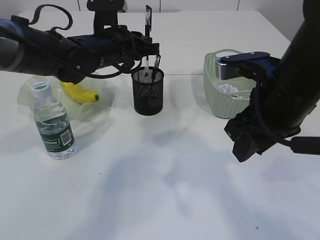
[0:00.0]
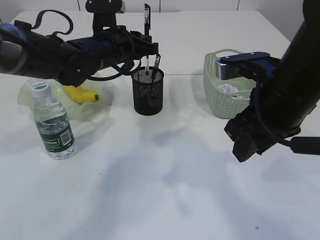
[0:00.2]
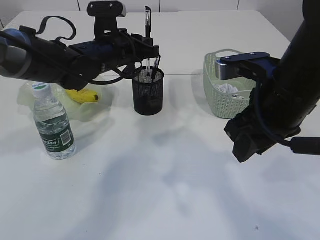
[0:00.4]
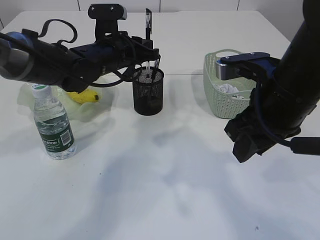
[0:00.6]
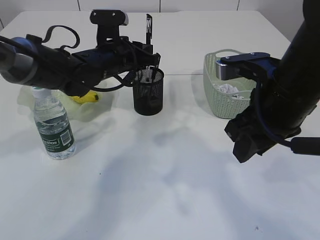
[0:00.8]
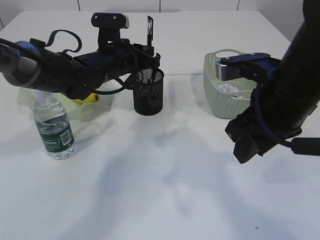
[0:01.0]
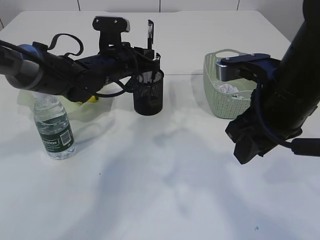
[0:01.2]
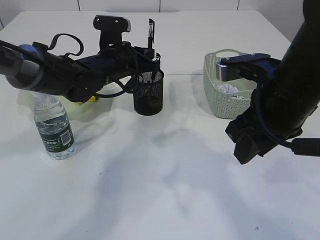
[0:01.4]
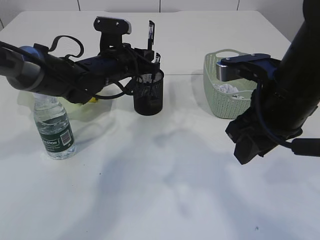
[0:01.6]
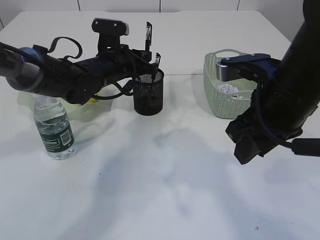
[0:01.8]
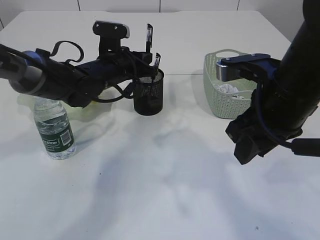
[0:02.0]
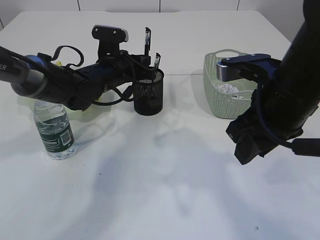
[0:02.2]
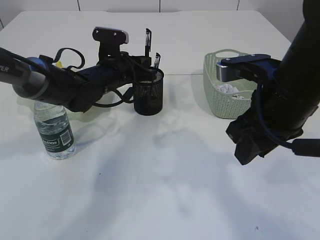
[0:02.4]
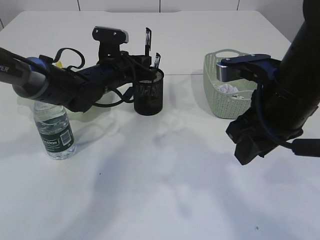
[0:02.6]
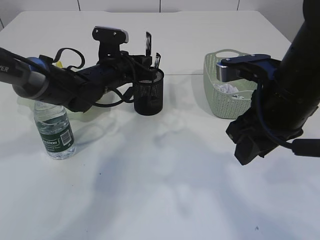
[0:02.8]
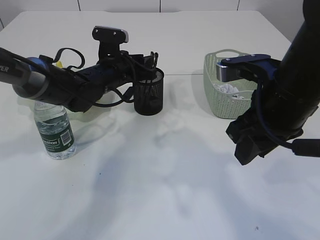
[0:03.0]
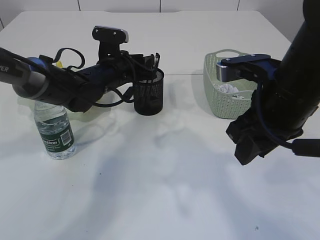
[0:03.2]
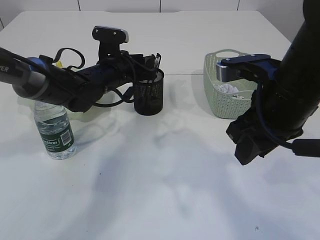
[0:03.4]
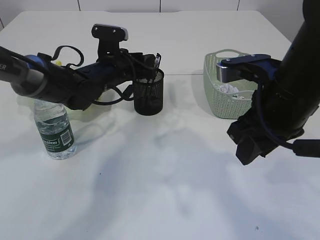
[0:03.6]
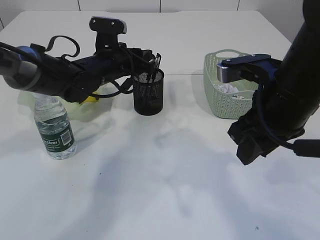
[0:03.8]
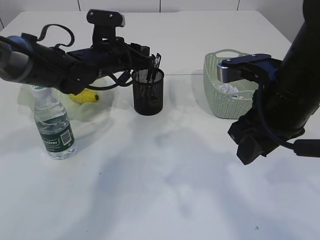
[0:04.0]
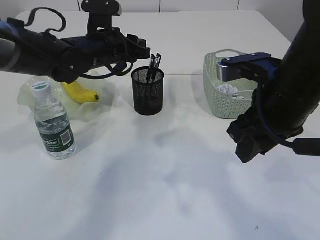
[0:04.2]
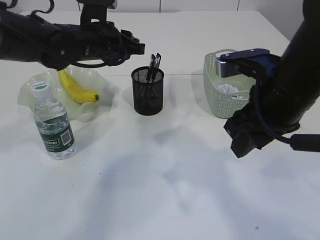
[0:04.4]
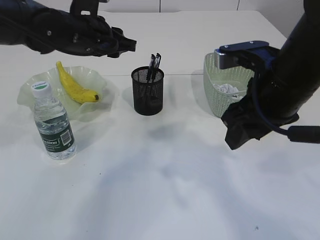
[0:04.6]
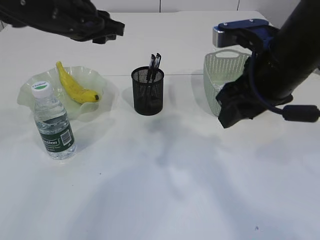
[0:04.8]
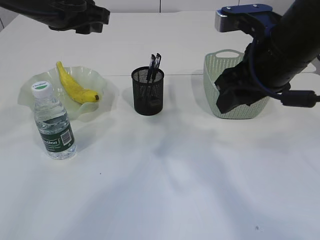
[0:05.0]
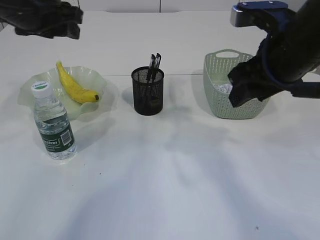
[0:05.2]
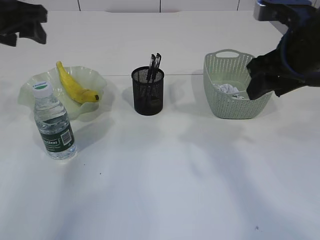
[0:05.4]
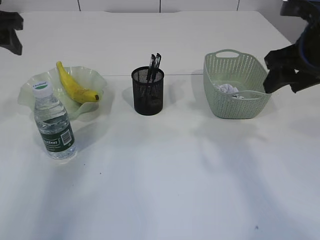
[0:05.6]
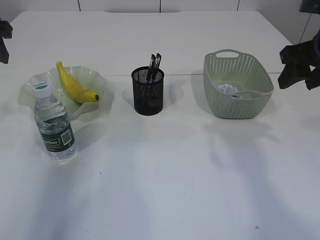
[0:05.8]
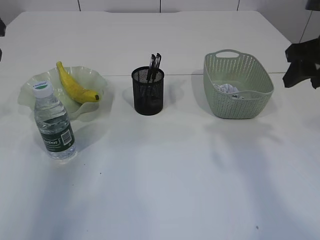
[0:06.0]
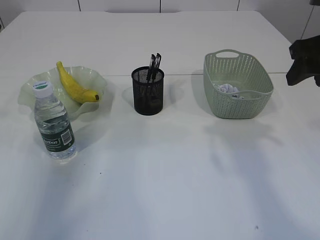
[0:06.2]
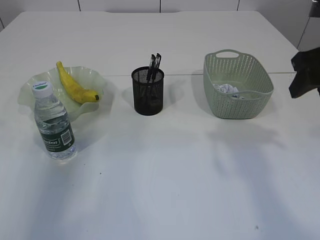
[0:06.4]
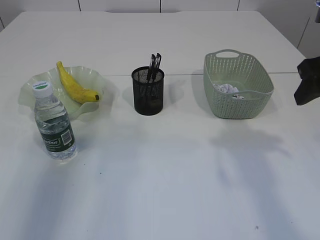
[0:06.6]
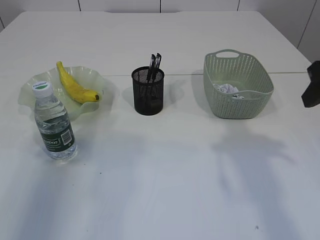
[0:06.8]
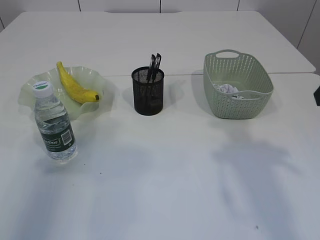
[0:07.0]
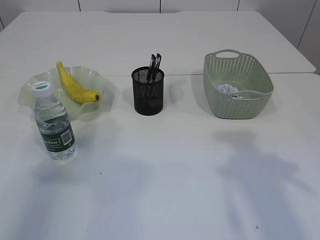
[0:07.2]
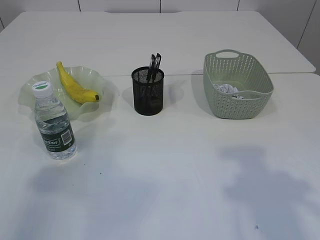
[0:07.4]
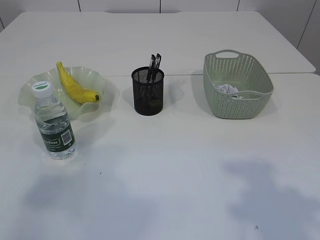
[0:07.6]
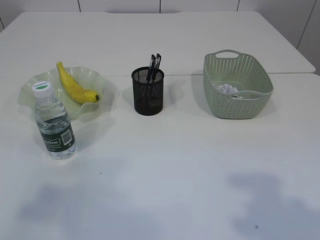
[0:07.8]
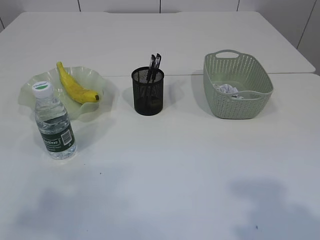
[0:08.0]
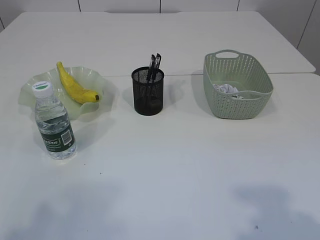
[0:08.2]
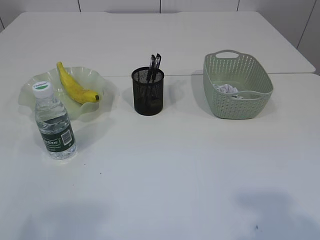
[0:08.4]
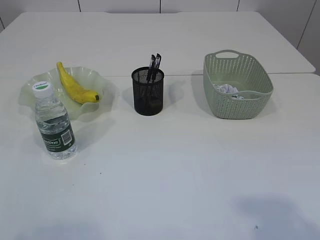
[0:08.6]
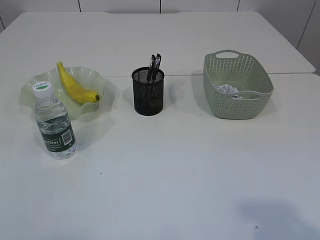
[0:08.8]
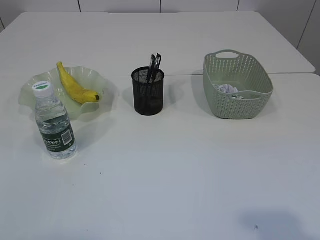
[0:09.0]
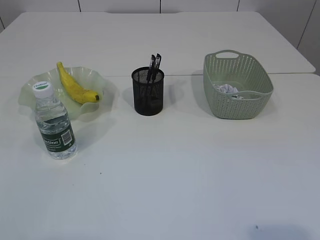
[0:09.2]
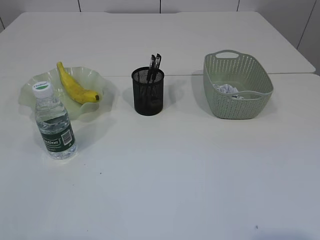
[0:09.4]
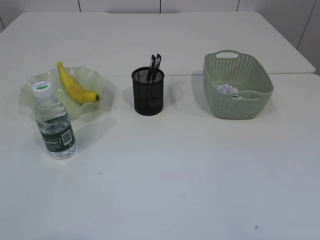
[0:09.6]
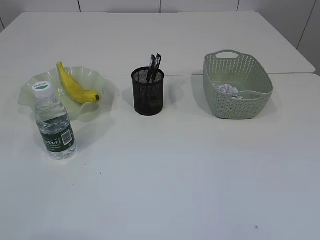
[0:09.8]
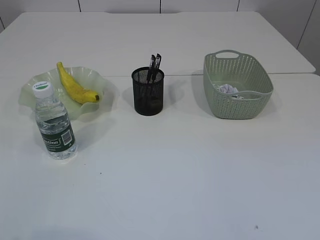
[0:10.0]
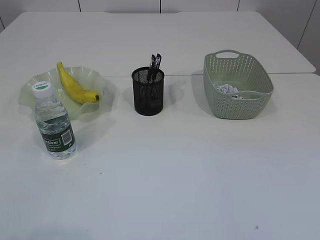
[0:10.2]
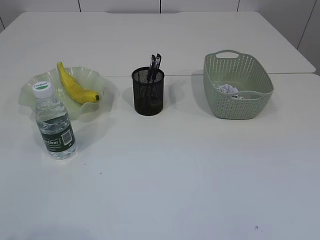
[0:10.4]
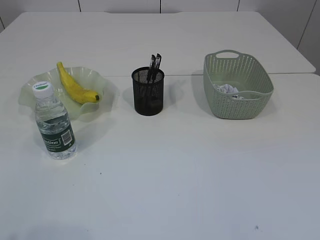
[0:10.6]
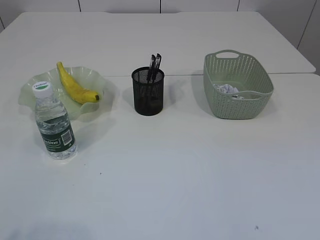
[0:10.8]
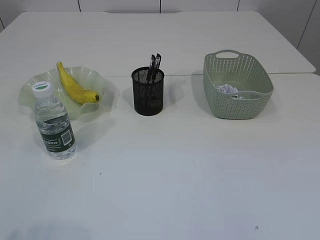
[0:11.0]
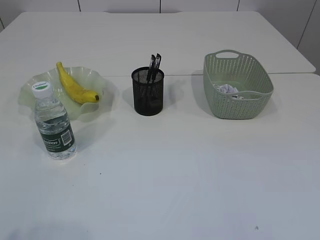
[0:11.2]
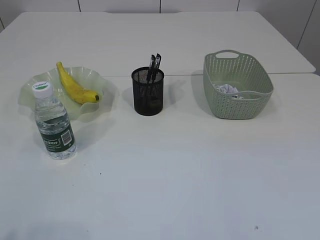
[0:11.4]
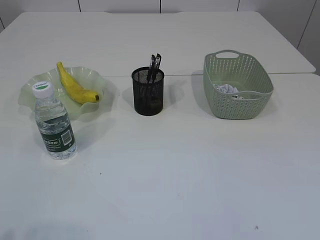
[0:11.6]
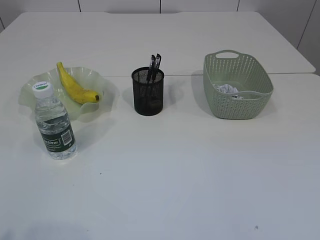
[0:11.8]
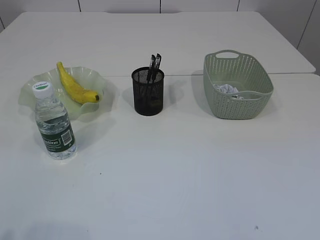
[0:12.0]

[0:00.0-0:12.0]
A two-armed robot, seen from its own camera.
Step, 0:00.0 to 0:04.4: Place the pen into the pen holder.
0:00.0 to 0:01.6: There are only small adjustments of the grippers.
0:01.6 to 0:03.0: The grippers stay close to where they were, moving slightly.
0:03.0 to 0:04.4: The left gripper goes roughly 10 cm upward.
0:04.4 to 0:06.0: The left gripper shifts some 20 cm to the left, upward and backward, and opens its fingers; the right gripper moves to the right and forward, roughly 10 cm.
0:06.0 to 0:07.6: The two grippers go some 20 cm backward.

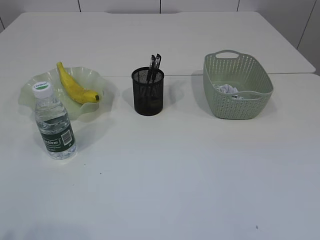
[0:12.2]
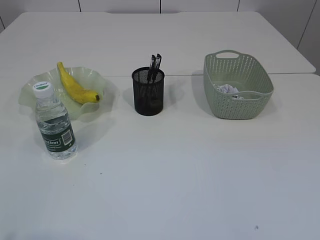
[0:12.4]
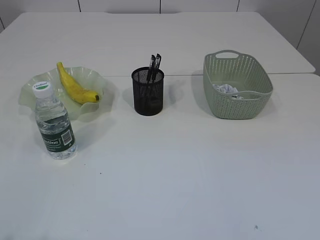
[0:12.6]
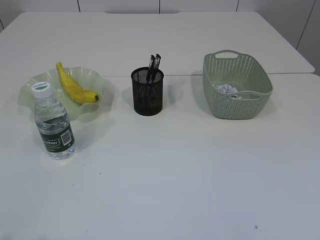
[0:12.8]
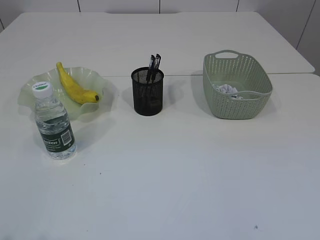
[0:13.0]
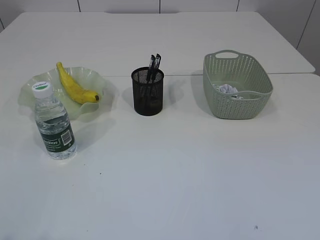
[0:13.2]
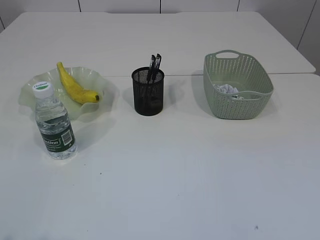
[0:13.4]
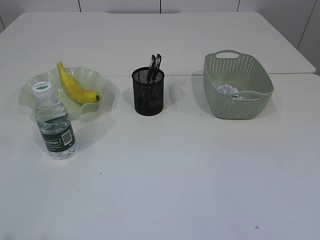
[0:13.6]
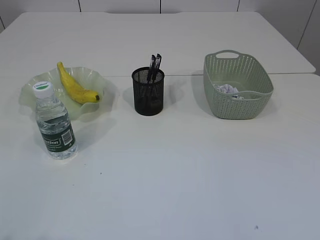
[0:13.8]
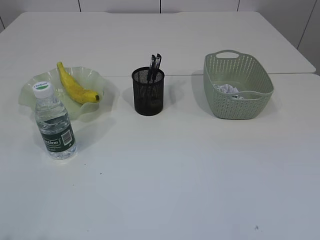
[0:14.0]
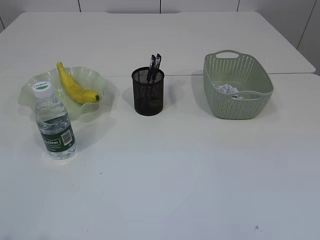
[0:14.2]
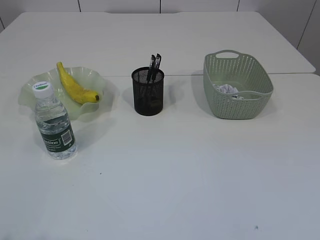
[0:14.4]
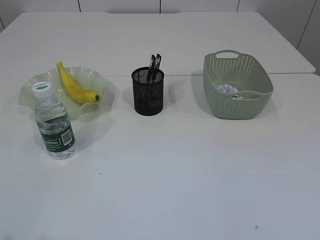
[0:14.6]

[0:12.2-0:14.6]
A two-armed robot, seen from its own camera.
0:13.4 to 0:14.6: Neither gripper changes place.

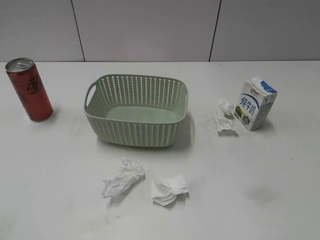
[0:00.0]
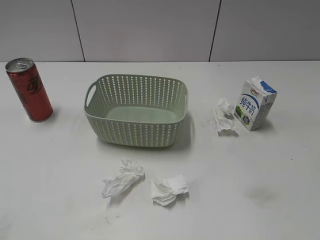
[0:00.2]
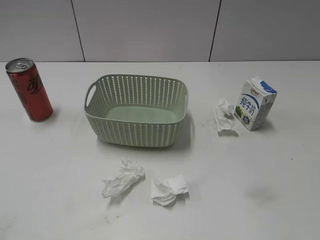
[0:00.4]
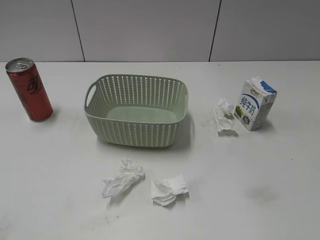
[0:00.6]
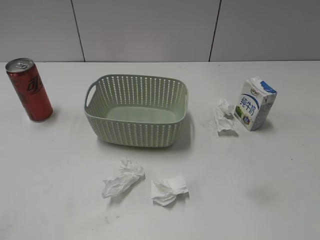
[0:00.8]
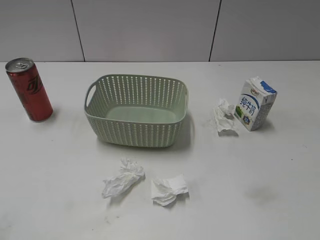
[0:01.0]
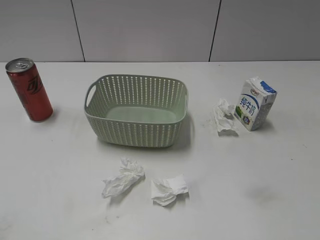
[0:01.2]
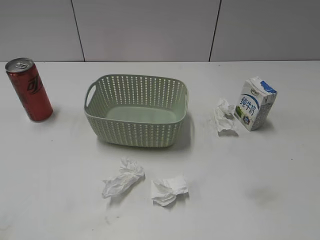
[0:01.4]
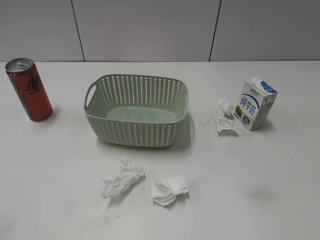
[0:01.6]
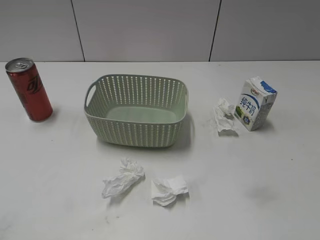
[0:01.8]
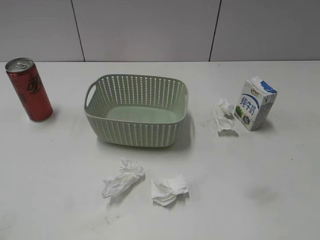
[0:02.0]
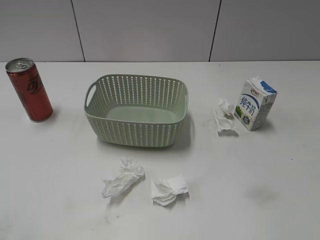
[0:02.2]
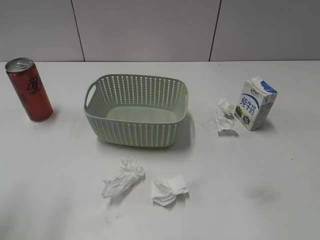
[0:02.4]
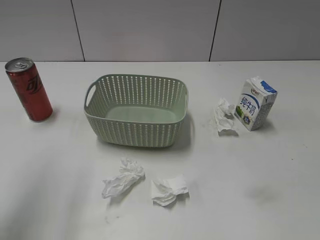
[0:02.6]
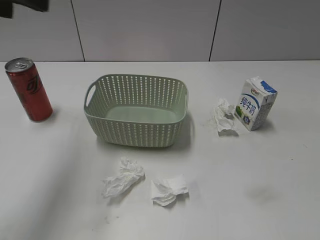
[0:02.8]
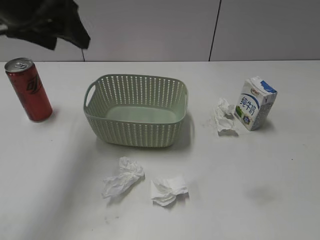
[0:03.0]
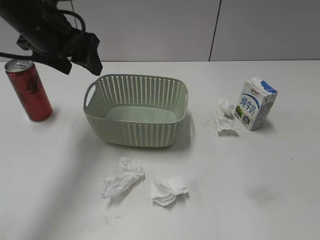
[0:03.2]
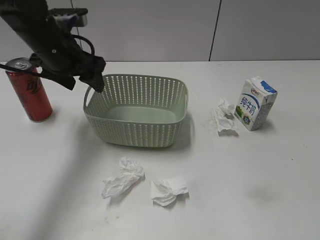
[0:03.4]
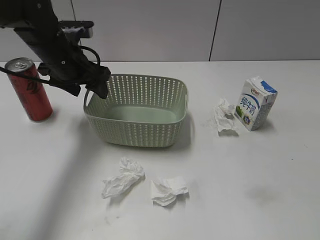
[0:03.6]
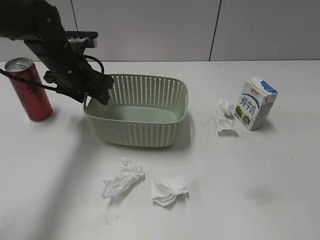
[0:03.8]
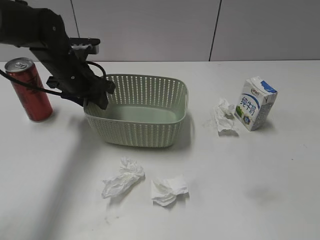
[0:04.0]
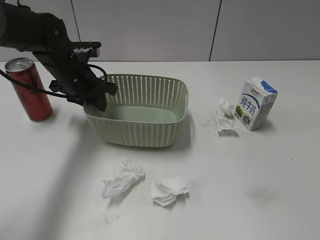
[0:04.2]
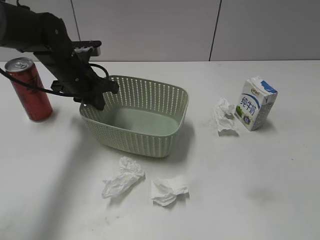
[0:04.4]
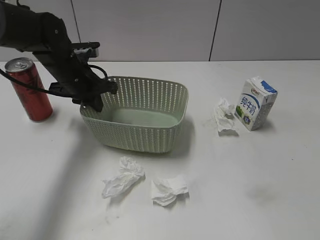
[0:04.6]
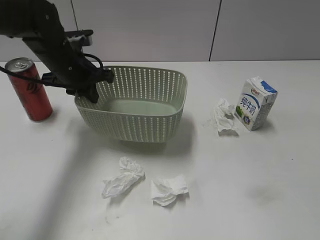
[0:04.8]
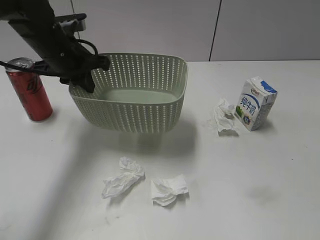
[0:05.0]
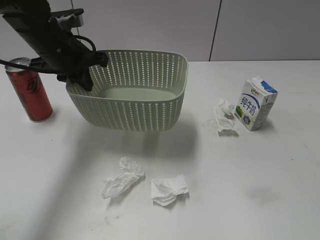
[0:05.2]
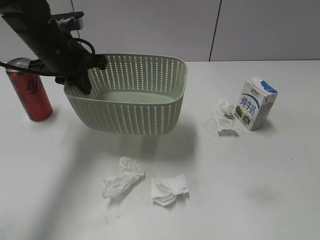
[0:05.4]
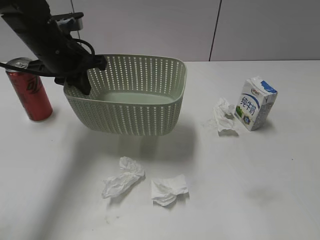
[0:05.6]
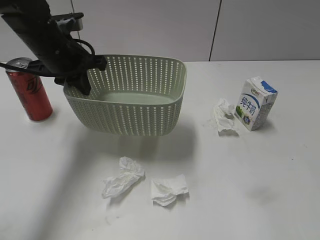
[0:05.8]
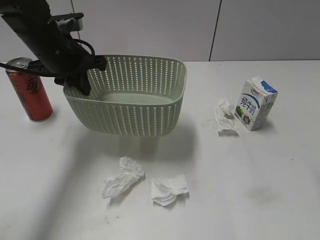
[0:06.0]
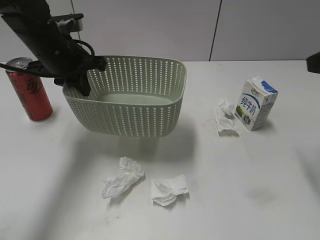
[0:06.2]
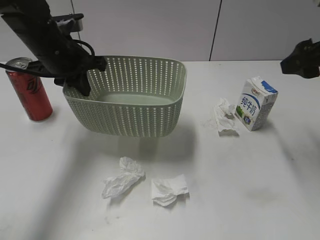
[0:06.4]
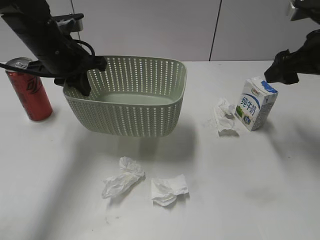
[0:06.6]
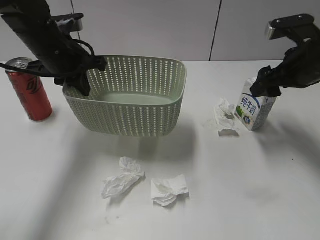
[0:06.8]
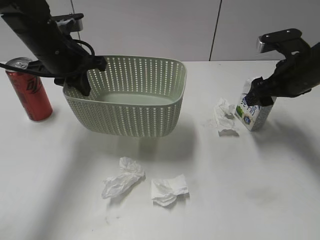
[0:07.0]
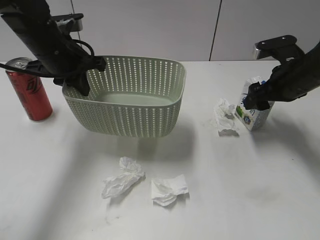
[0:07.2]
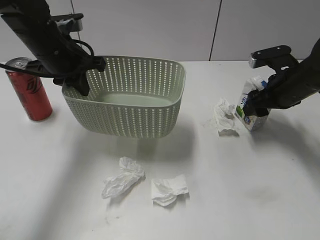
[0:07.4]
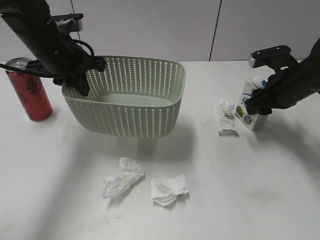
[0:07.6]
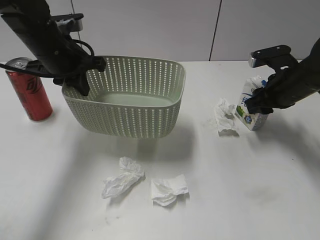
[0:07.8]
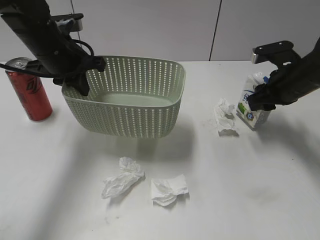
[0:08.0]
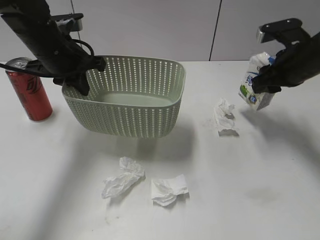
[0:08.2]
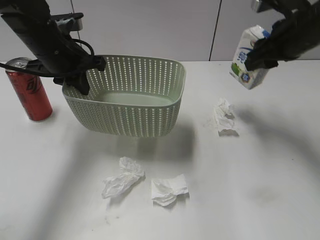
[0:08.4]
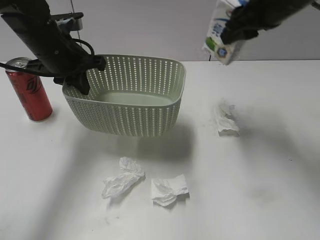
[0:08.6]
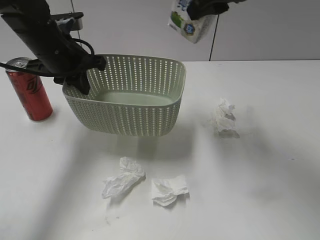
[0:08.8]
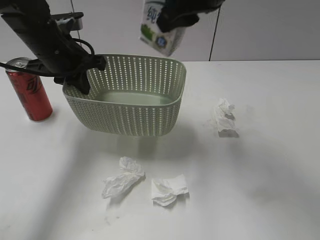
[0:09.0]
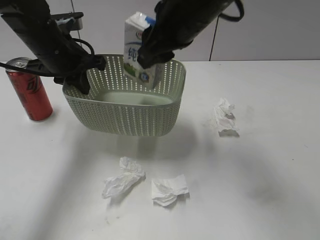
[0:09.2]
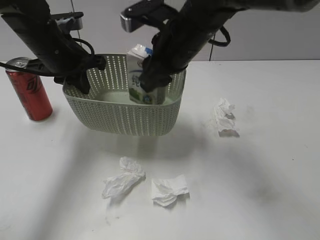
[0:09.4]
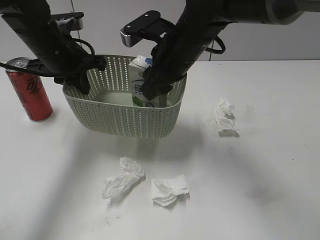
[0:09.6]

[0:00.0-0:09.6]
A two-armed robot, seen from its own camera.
Step, 0:02.8 to 0:04.4: Grasp the basket with left gripper.
Step, 0:04.6 to 0:05.2: Lift the basket with left gripper.
Step, 0:05.4 to 0:07.8: Grasp the milk with right gripper.
0:01.6 to 0:03.2: The left gripper moves forward, about 35 cm, and opens.
0:03.2 to 0:04.8: The left gripper heads downward and forward, covering about 15 cm, and closes up.
0:04.8 to 0:06.4: The right gripper is displaced forward by about 25 cm. The left gripper is displaced upward by roughly 5 cm.
0:06.4 to 0:08.0: The right gripper moves downward and forward, some 15 cm, and closes its fingers.
0:08.0 to 0:09.6: The right gripper moves to the left, about 20 cm.
